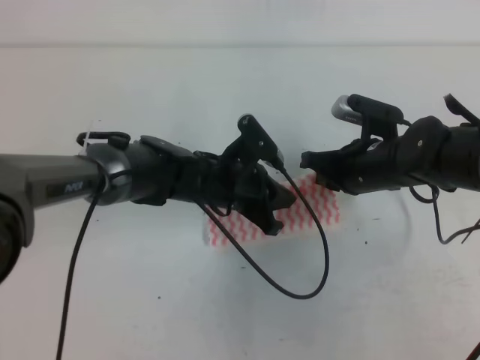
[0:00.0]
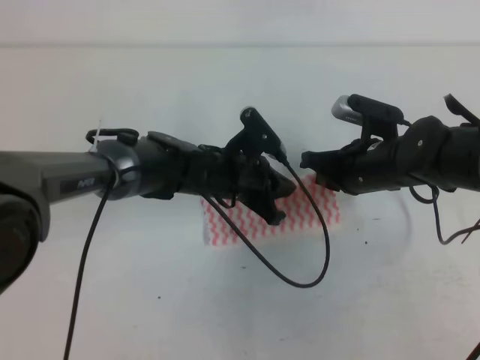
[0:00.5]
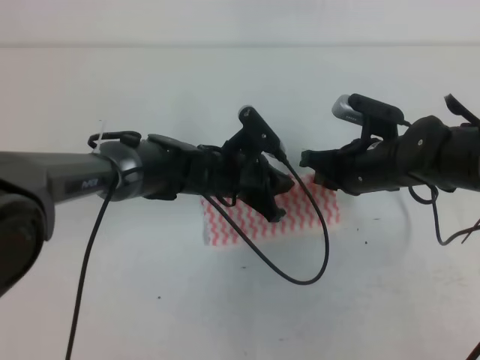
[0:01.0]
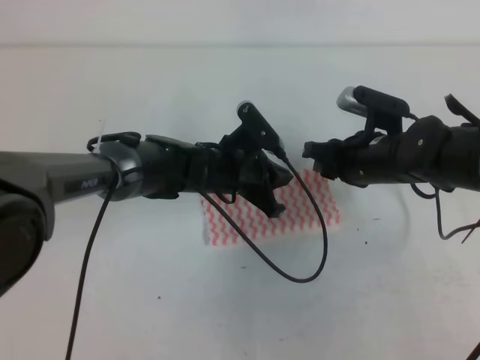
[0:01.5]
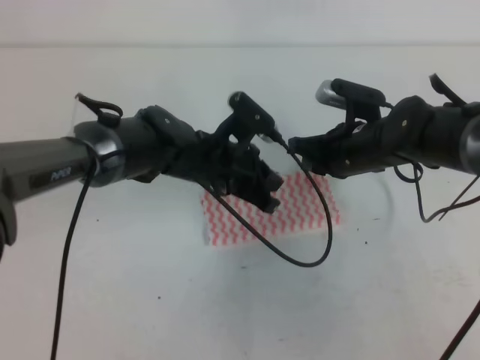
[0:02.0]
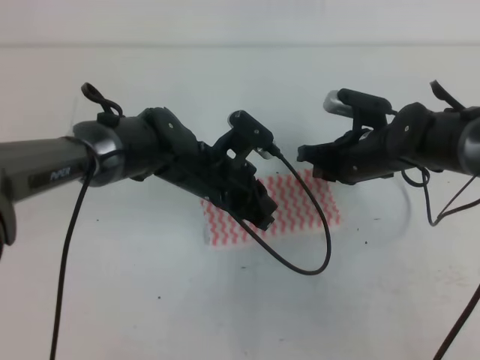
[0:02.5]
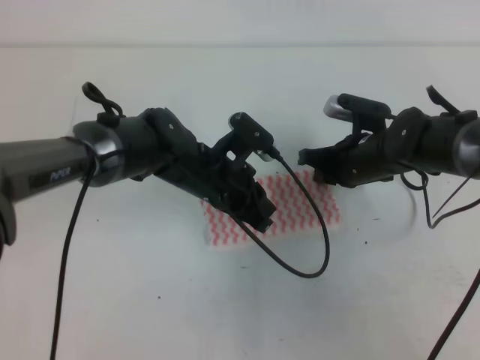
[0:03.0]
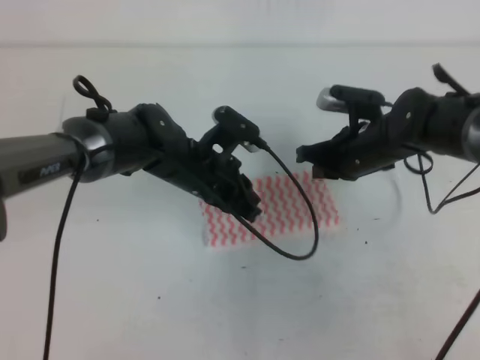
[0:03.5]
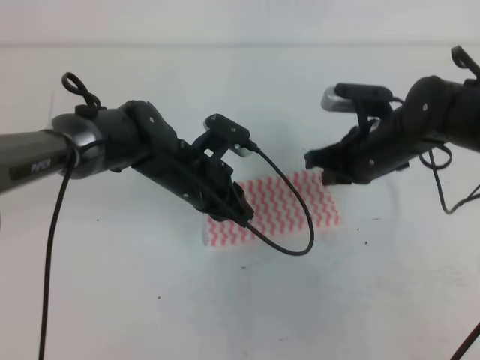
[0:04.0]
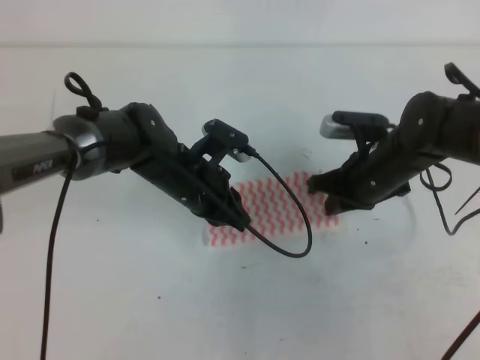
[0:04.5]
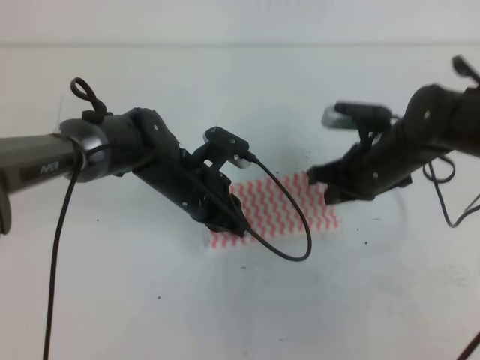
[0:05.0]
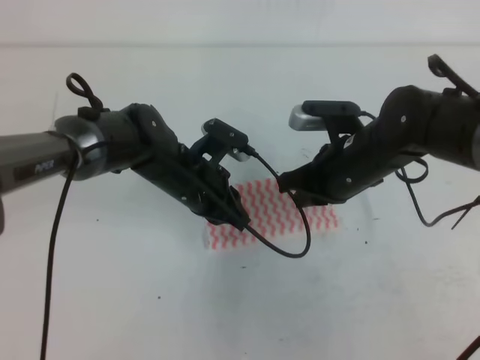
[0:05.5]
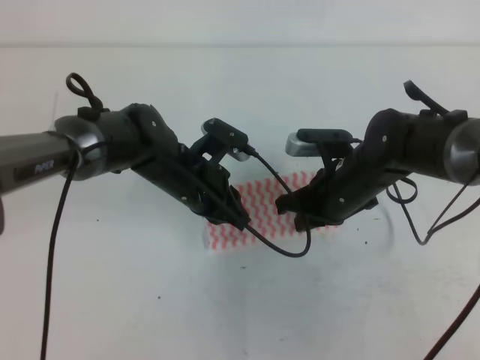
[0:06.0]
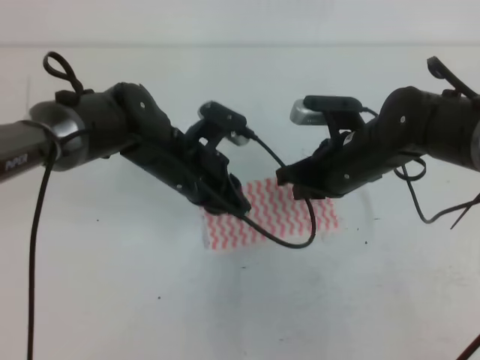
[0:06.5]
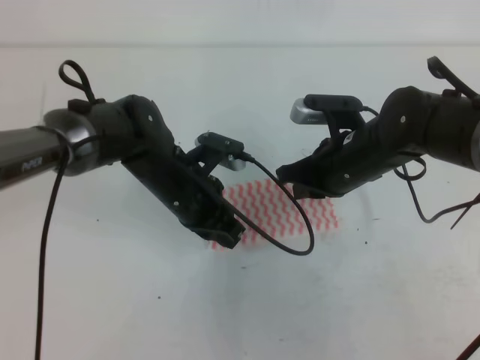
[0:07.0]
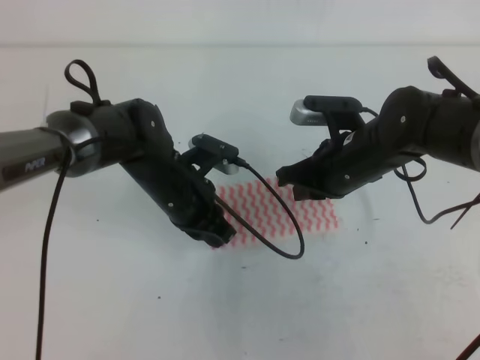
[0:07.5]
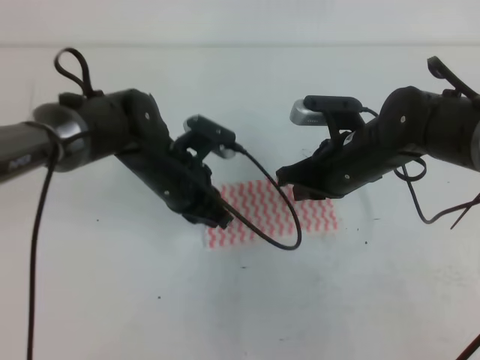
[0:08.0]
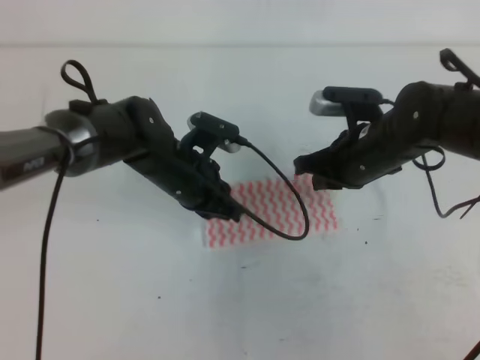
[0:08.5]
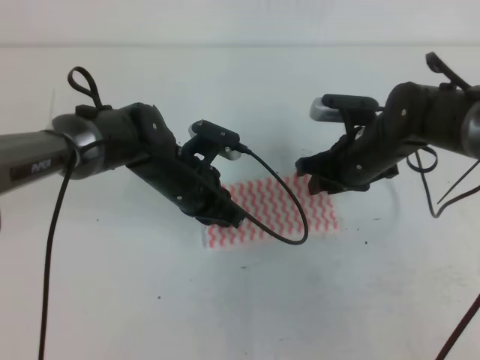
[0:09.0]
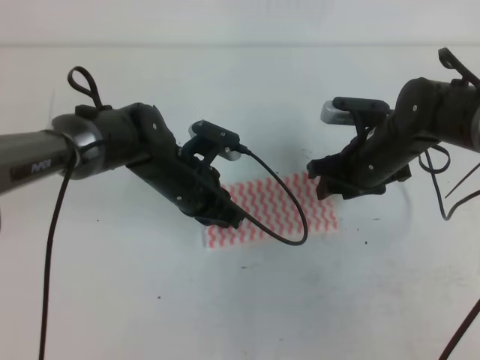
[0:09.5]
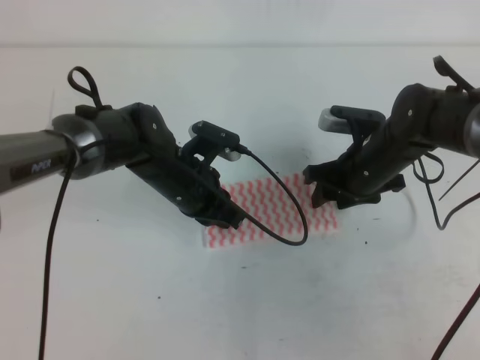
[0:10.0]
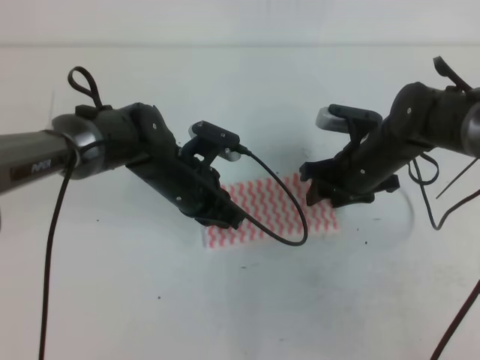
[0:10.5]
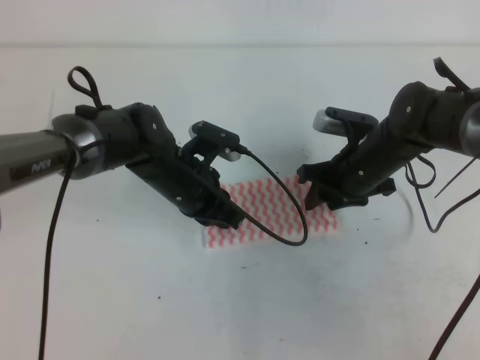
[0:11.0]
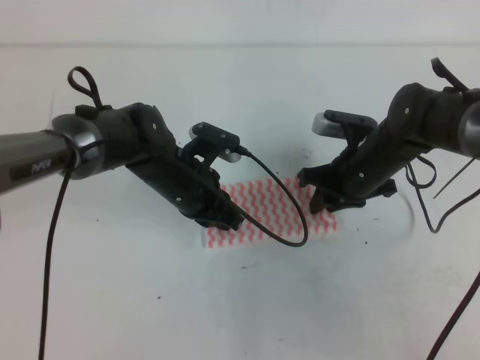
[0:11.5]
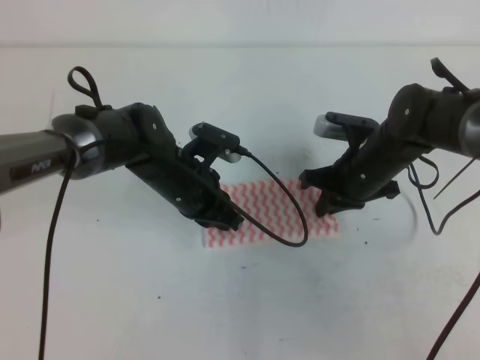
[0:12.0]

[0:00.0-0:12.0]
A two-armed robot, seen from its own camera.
Step, 0:00.0 to 0:04.5: Tidy up the towels.
0:00.0 to 0:02.0: The right gripper opens, then closes again.
0:02.0 to 0:04.0: The grippers stay close to where they were, moving slightly.
0:04.0 to 0:06.0: The right gripper moves approximately 5 cm.
0:06.0 to 0:08.0: The grippers move only a little.
0:08.0 to 0:10.0: The right gripper ends up approximately 5 cm from where it was, and opens its fingers.
0:10.0 to 0:12.0: The right gripper closes.

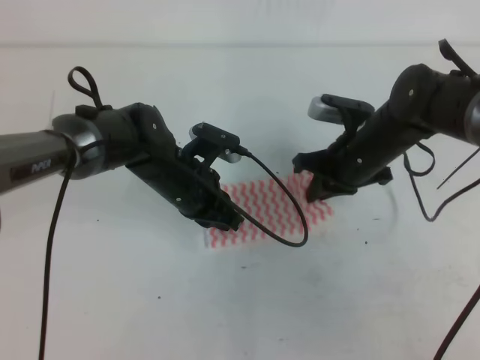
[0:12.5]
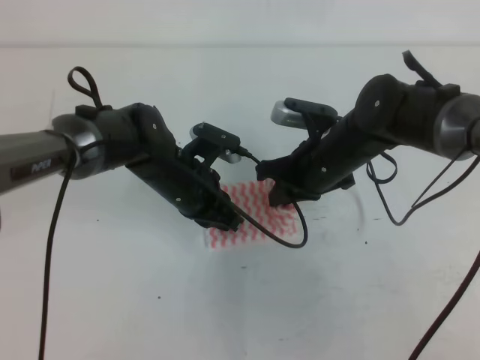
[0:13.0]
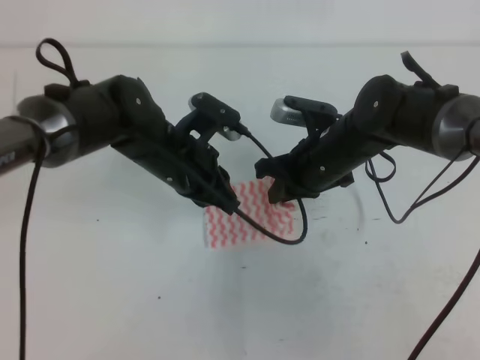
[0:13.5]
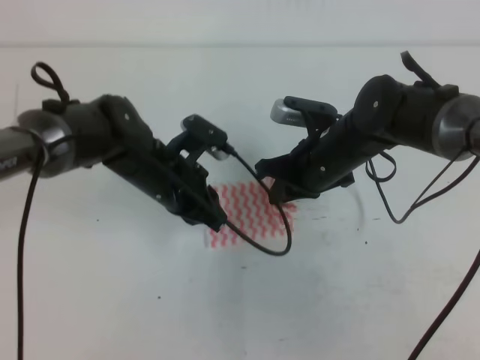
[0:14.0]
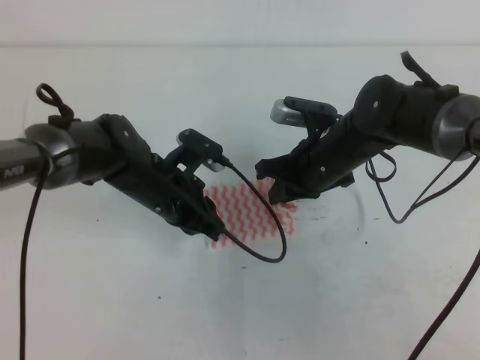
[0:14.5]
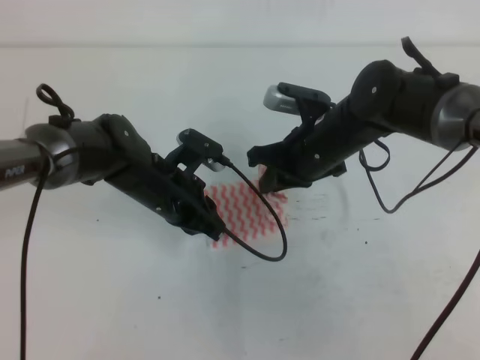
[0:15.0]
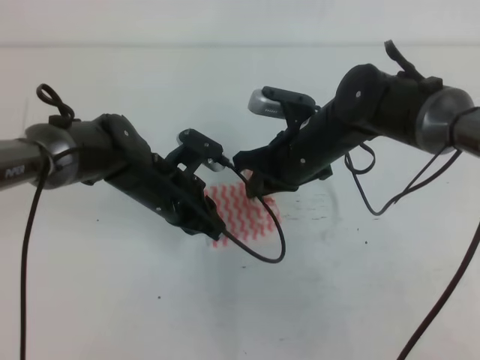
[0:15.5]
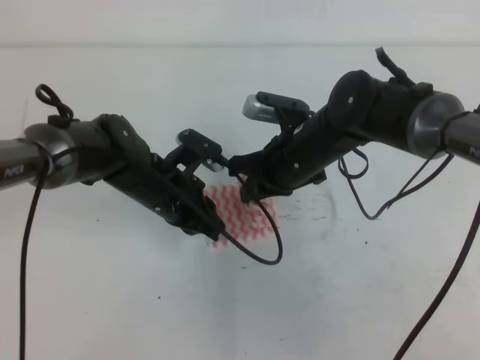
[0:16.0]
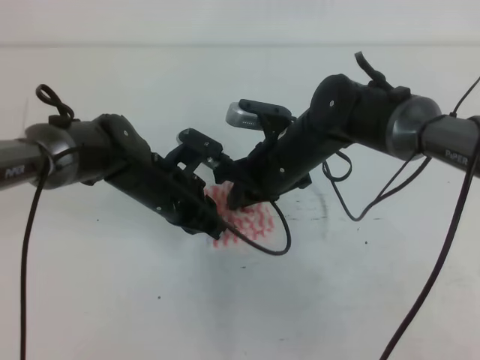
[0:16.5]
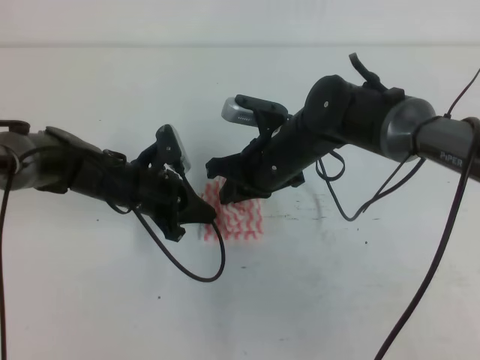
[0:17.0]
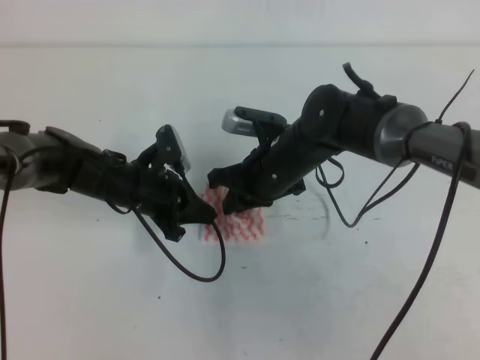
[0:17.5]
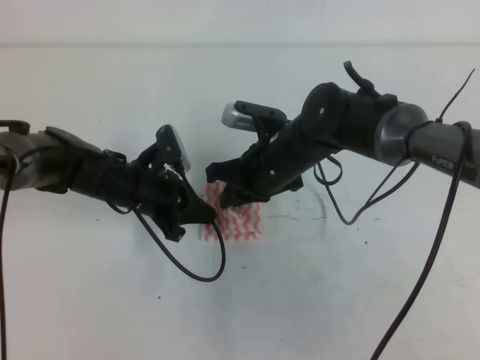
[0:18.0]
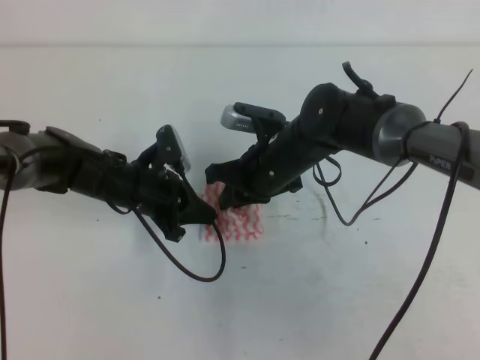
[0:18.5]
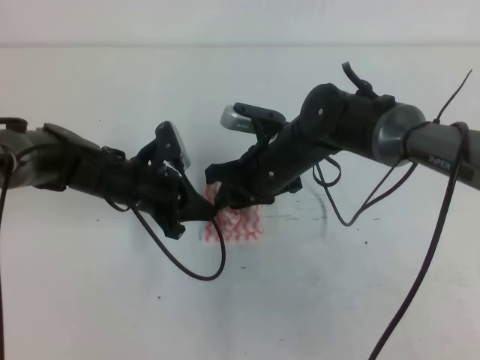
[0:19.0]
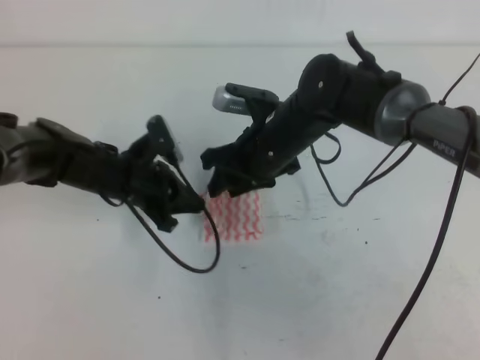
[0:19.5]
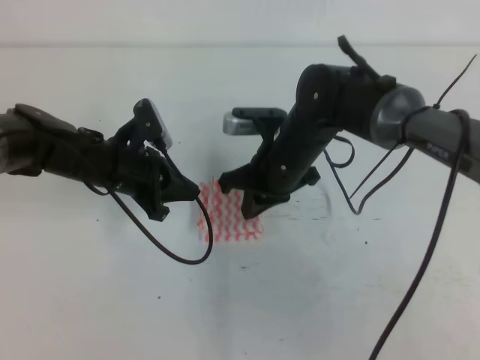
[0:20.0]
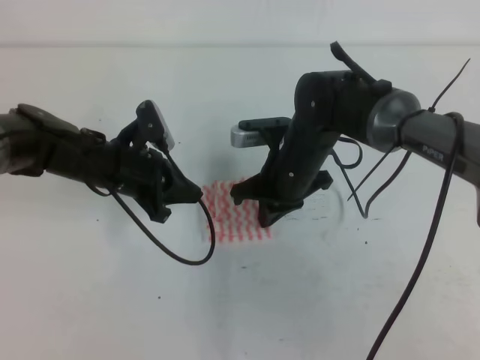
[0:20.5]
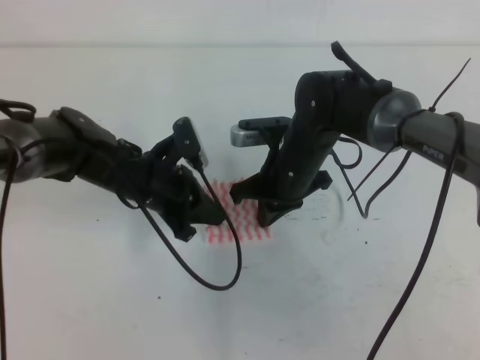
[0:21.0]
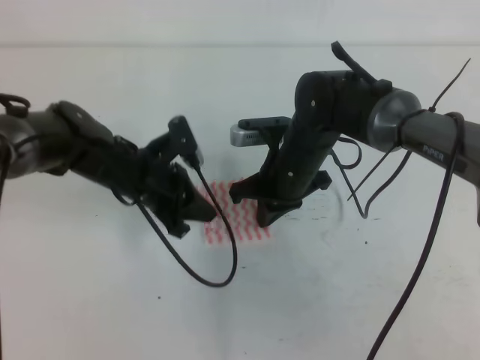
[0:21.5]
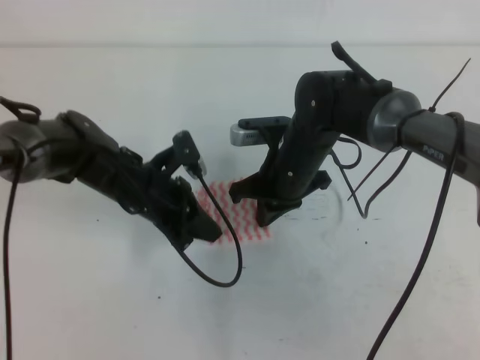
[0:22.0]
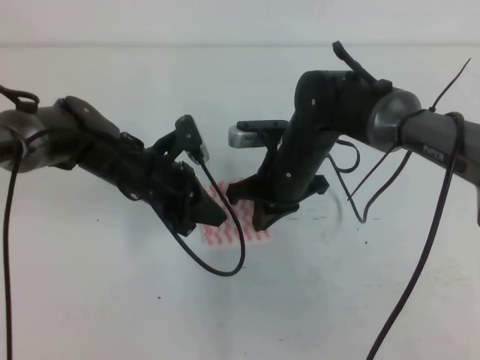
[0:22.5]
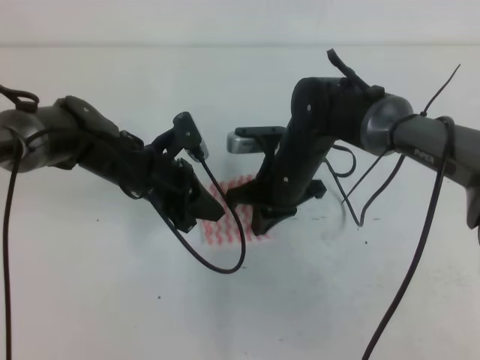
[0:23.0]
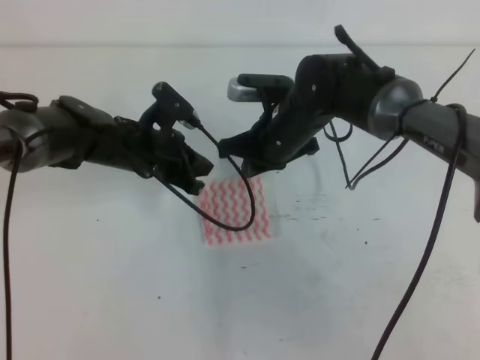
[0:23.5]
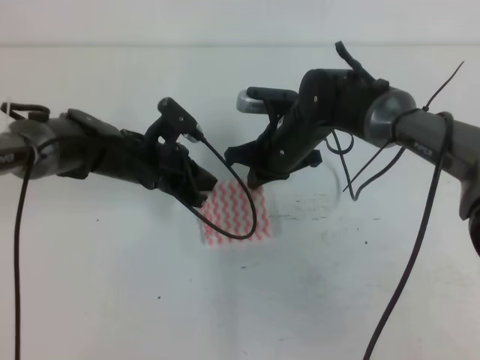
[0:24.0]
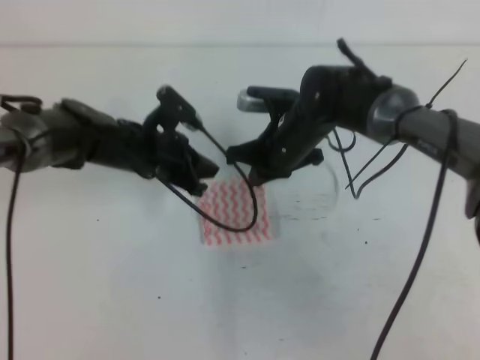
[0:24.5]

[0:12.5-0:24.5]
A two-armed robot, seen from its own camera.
0:14.5 to 0:16.5: The grippers make only small movements.
0:16.5 to 0:18.5: The left gripper ends up about 5 cm from where it was.
0:18.5 to 0:20.5: The right gripper opens, then closes once more.
0:20.5 to 0:22.5: The grippers stay close to where they were, moving slightly.

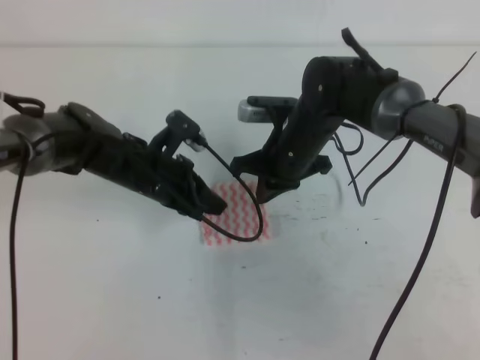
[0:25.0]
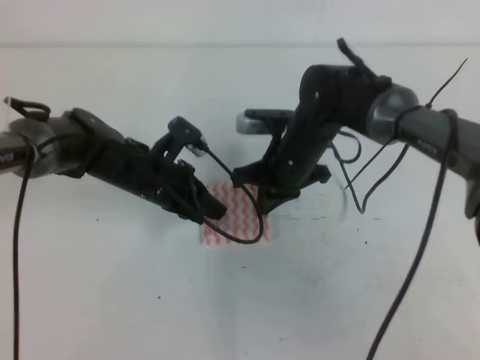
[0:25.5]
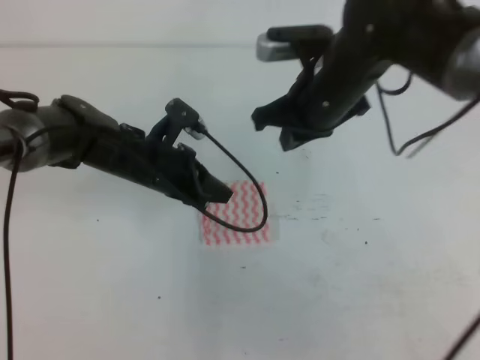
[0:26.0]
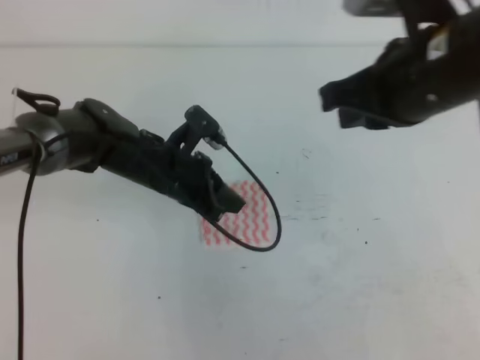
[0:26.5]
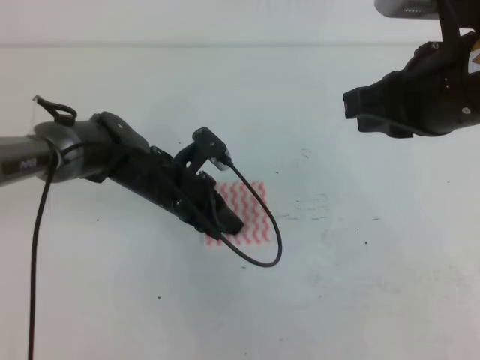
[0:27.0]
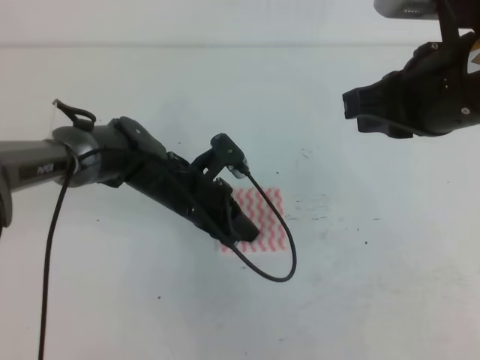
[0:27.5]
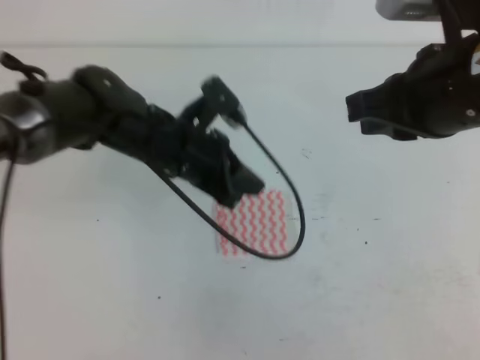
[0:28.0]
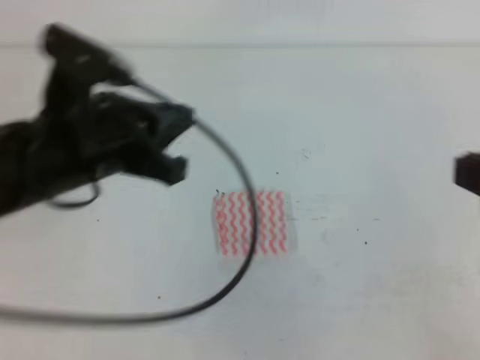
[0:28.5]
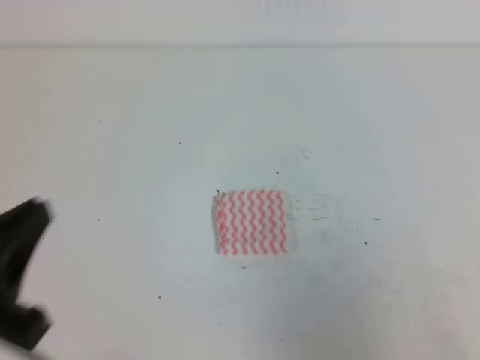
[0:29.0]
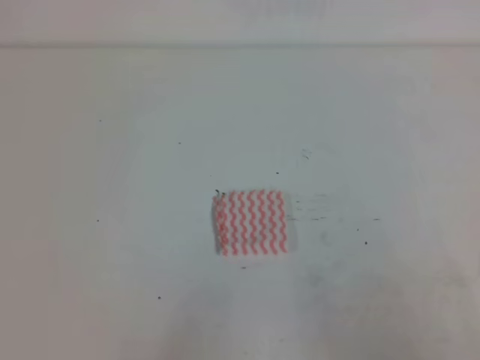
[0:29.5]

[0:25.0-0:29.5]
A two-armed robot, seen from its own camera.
0:25.0 to 0:27.0: The right gripper heads upward, backward and to the right, covering about 25 cm.
0:27.0 to 0:29.5: The left gripper is displaced backward and to the left by roughly 35 cm, while the right gripper shifts roughly 25 cm backward, downward and to the right.
